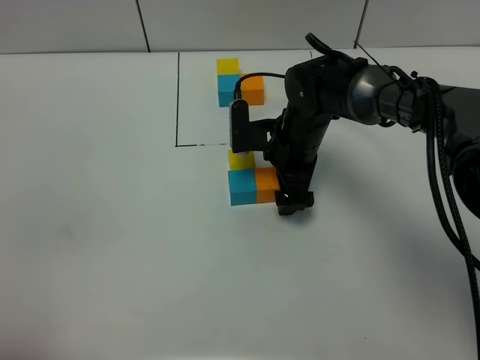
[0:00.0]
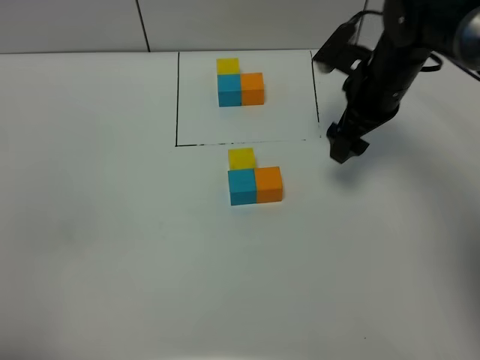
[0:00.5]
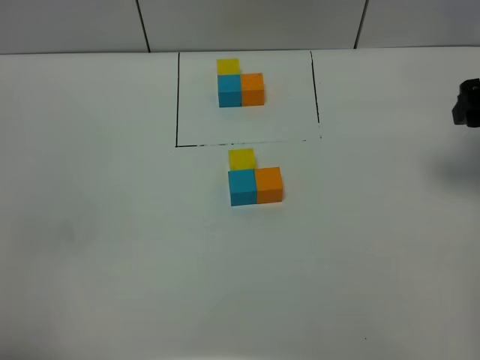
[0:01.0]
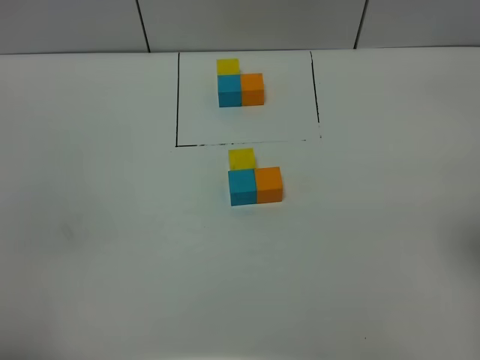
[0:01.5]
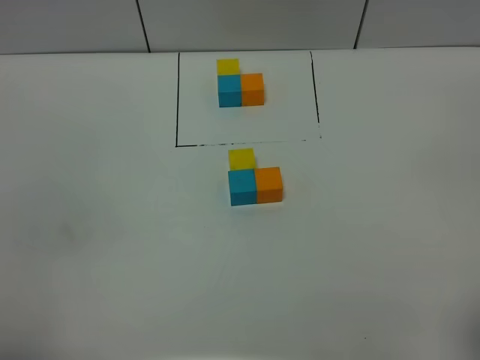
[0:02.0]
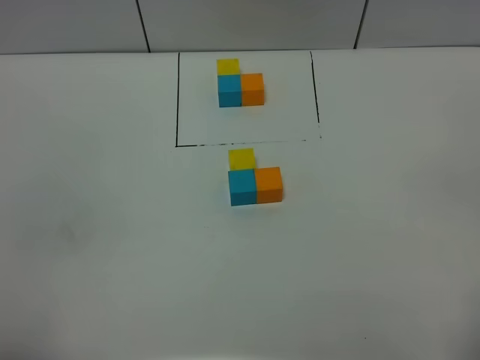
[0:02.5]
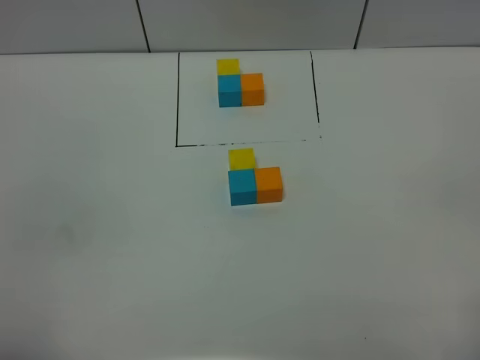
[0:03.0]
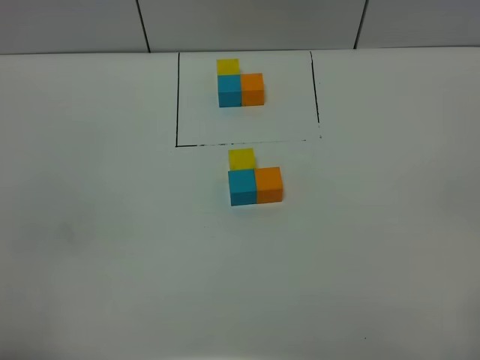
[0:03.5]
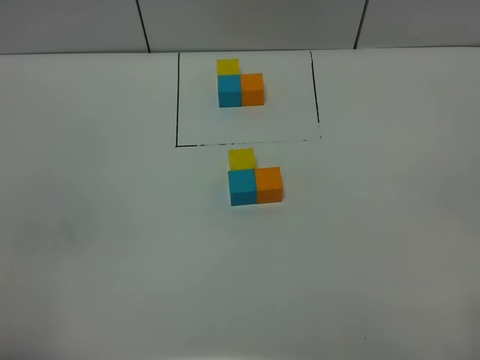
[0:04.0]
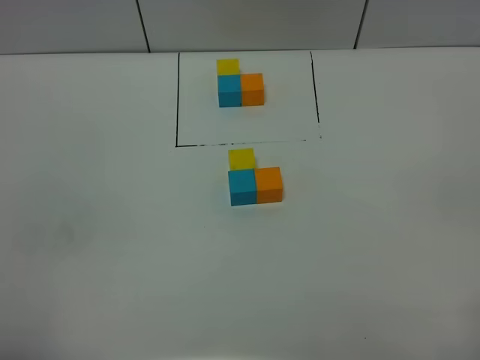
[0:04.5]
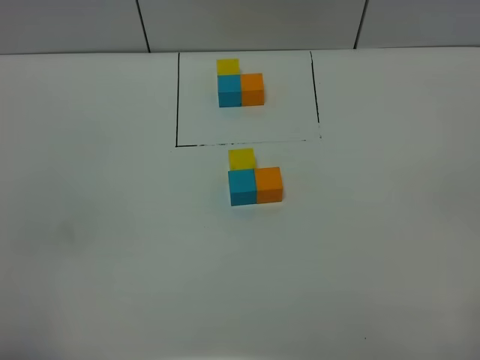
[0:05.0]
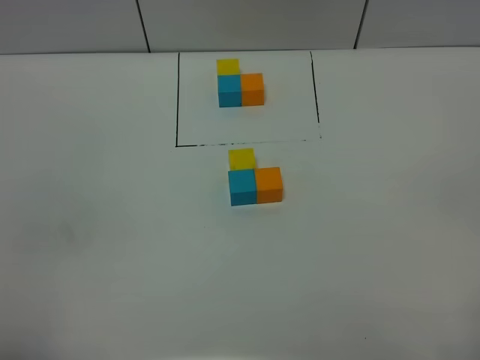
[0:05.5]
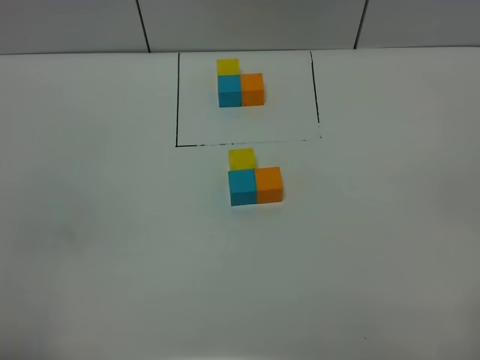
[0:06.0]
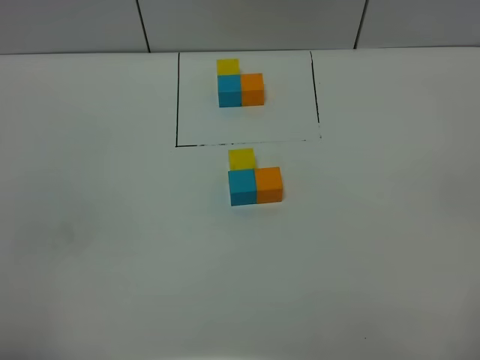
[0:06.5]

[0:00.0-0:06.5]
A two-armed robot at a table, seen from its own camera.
Task of the whole recording: According to the building block template in front, assemble the scattered blocks together.
0:00.0 to 0:02.0: The right gripper moves backward, to the right and upward, roughly 40 cm.
